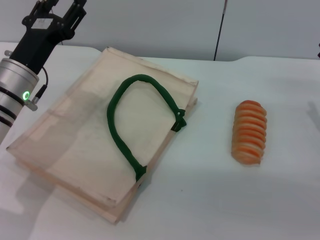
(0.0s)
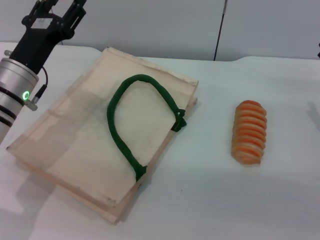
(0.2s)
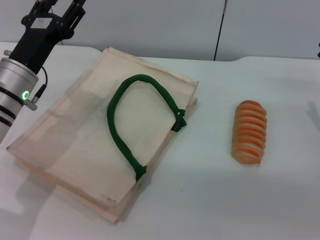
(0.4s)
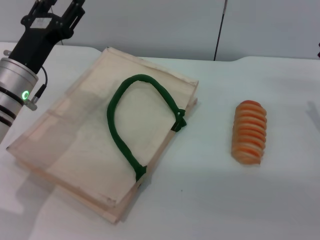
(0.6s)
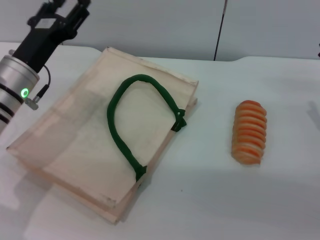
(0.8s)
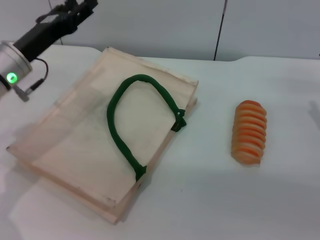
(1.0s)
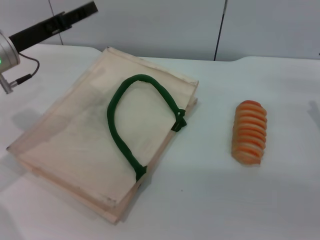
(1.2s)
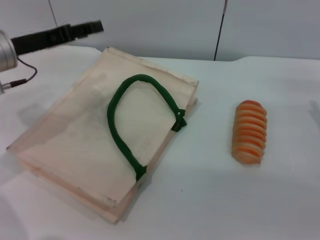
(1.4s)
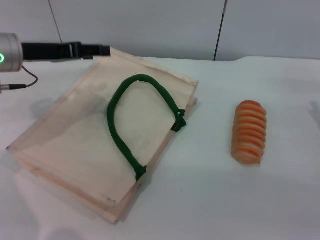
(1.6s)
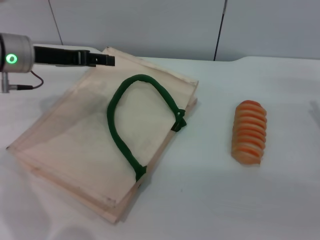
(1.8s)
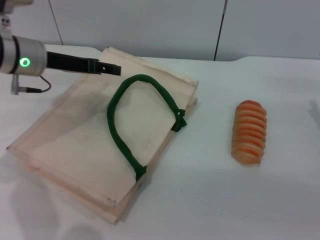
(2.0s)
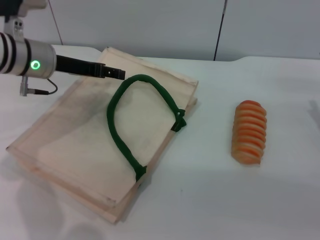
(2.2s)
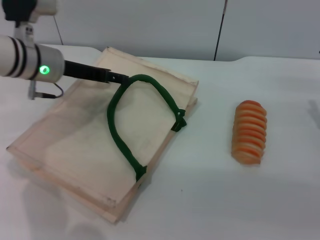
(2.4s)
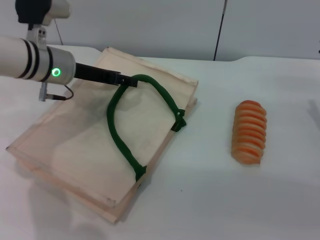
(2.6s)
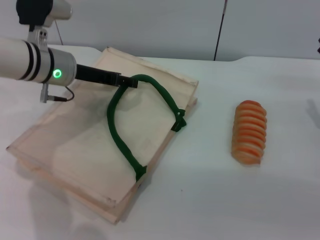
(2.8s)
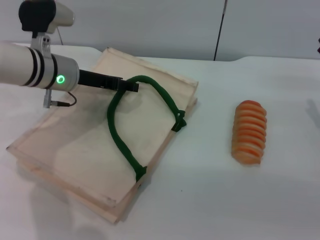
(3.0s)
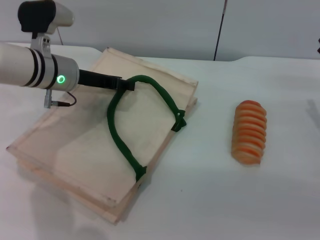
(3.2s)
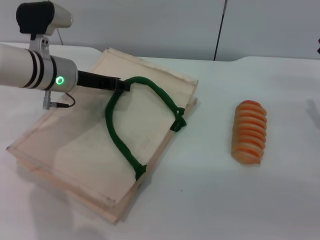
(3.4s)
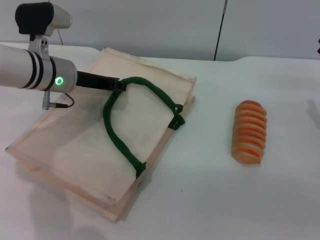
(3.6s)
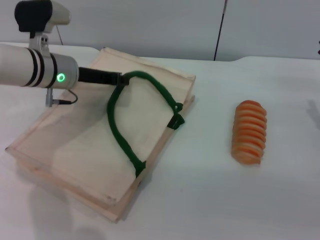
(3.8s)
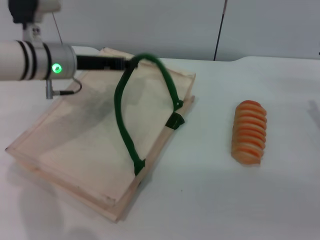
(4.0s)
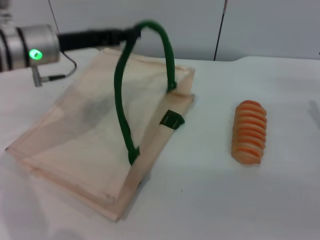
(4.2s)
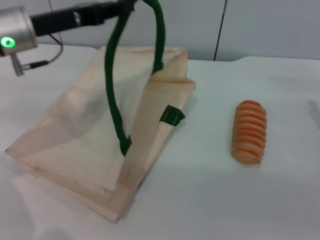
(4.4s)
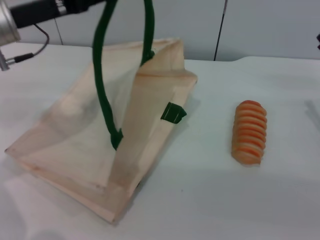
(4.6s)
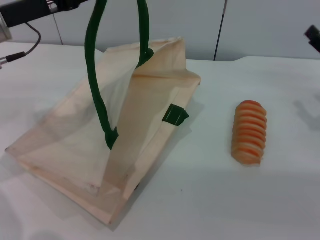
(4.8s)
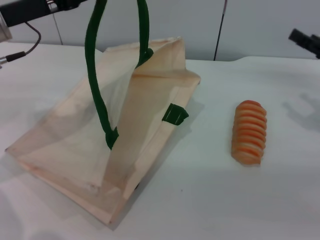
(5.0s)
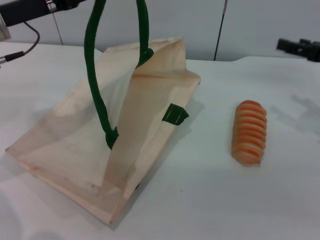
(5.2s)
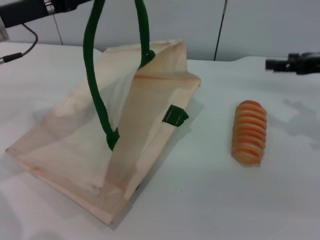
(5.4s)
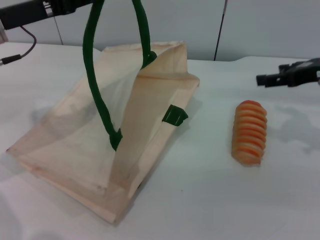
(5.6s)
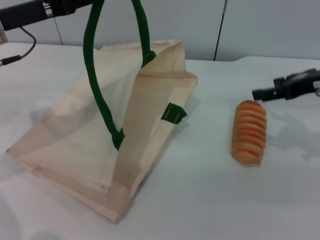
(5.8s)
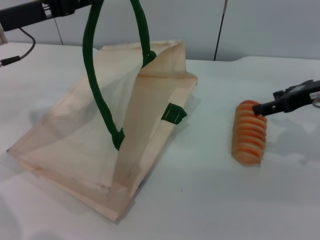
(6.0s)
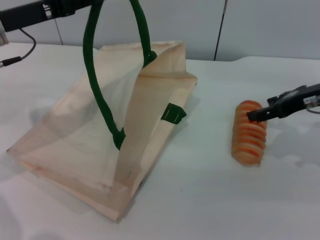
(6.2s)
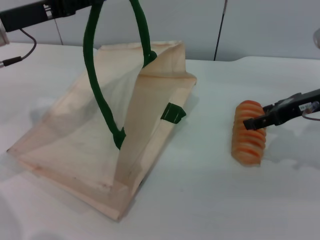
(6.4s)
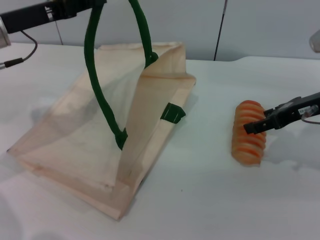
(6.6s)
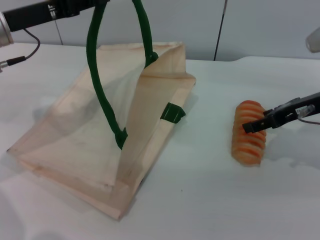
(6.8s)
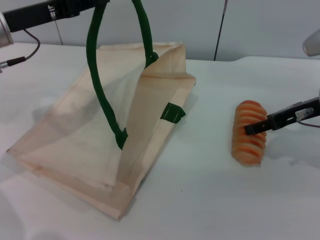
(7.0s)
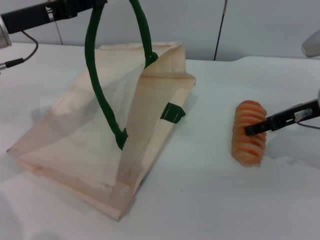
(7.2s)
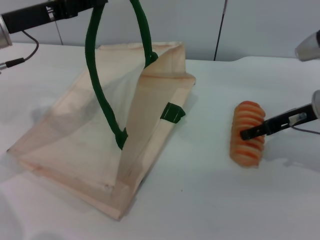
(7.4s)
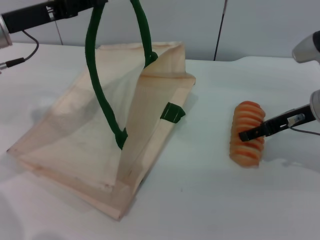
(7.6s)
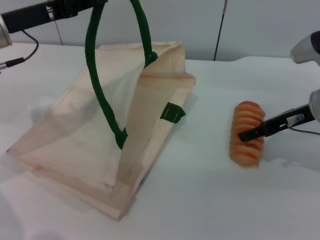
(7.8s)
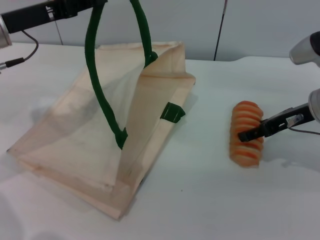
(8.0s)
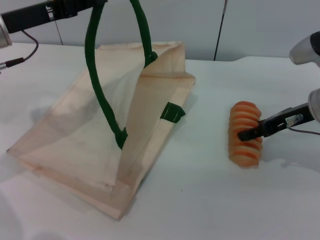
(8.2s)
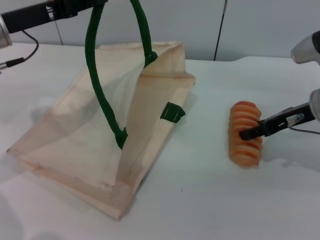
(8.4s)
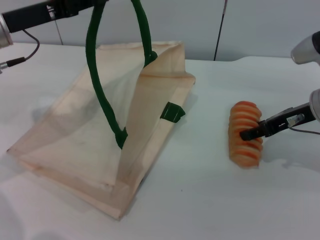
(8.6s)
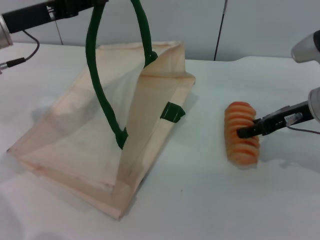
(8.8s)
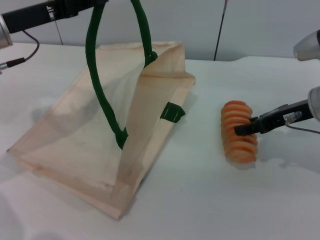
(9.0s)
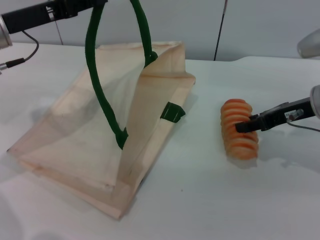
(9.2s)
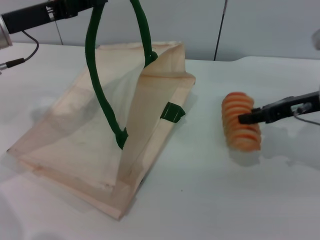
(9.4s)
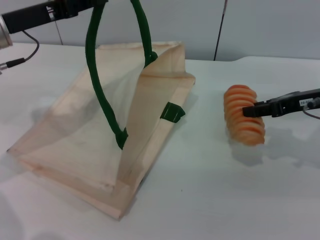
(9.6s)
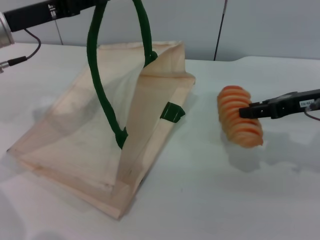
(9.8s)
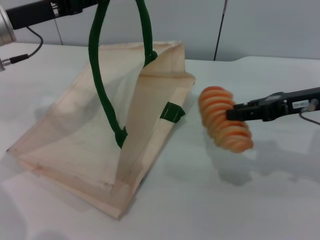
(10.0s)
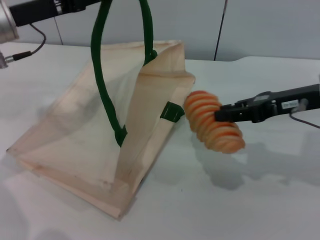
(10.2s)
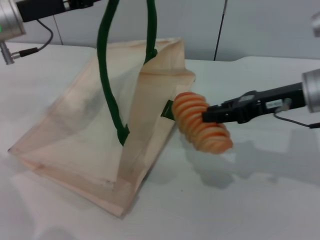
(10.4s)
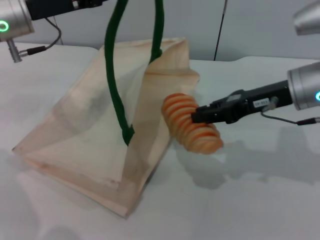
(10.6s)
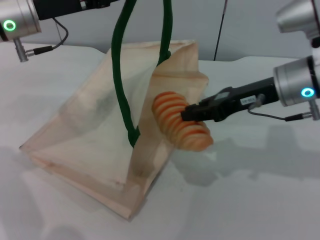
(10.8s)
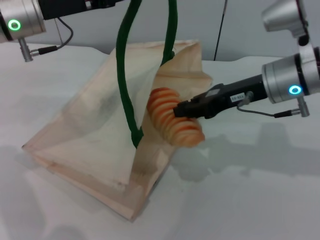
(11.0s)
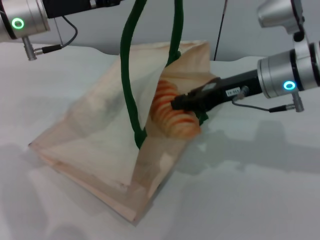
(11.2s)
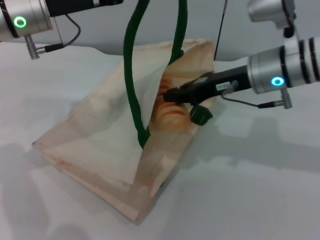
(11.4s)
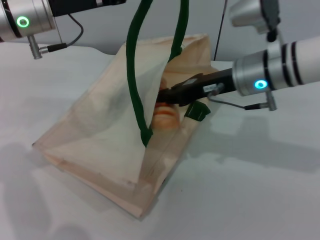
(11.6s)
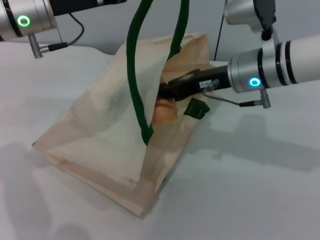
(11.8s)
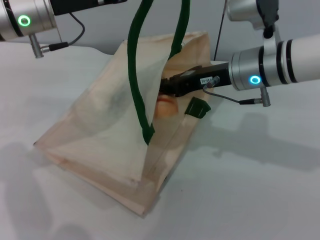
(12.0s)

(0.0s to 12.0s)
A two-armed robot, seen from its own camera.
Task of the whole recording: pick up the bread from the table and place it in the white handbag.
Step, 0.0s - 4.4s: Lift the woven bag with the left gripper to open it.
Step, 4.6s - 9.6s: Pick up the bread with the right gripper.
0.0s - 1.6s: The left gripper travels upward by approximately 5 cm.
1.6s - 3.0s: The left gripper shifts roughly 5 cm to the right.
3.0s - 4.4s: The left gripper goes roughly 5 cm upward, and closes its fingers.
4.4s - 6.0s: The right gripper travels upward and forward by approximately 10 cm.
6.0s - 7.6s: The right gripper moves approximately 5 cm.
7.6s - 9.0s: The grippers stay close to where they were, moving slightly.
9.0s - 10.4s: The right gripper closes up.
10.4s - 12.0s: The right gripper travels to the left by about 10 cm.

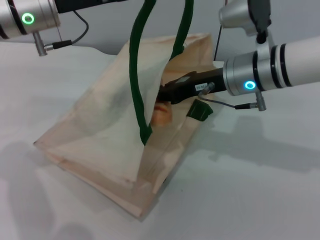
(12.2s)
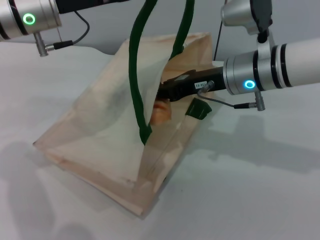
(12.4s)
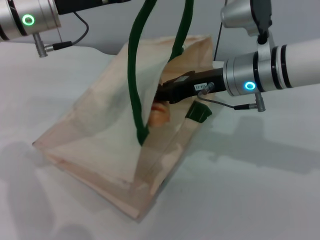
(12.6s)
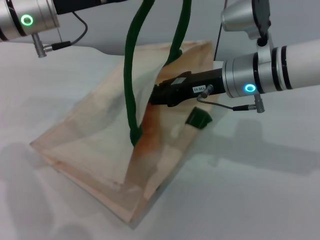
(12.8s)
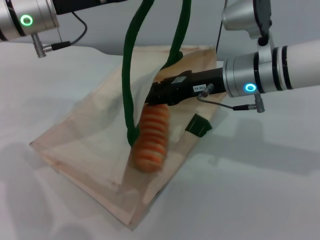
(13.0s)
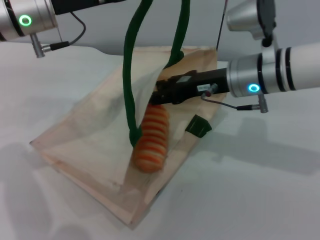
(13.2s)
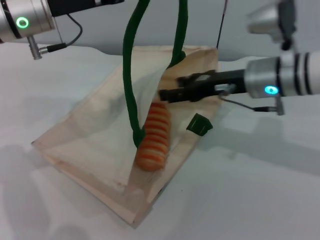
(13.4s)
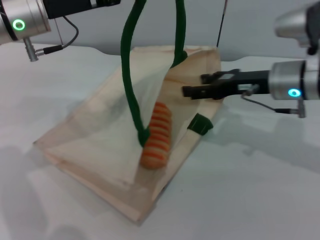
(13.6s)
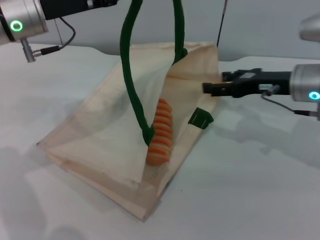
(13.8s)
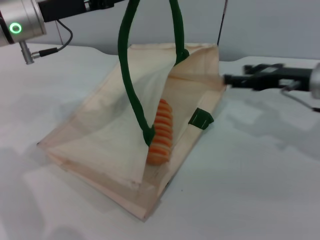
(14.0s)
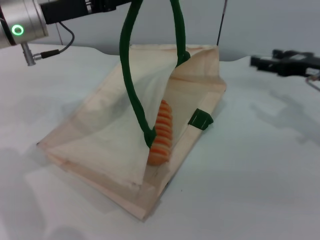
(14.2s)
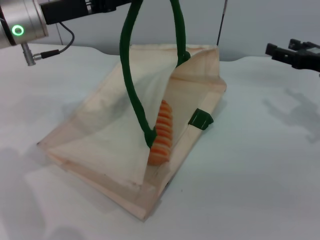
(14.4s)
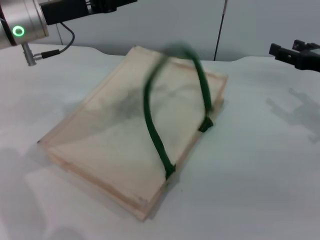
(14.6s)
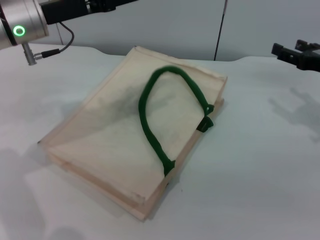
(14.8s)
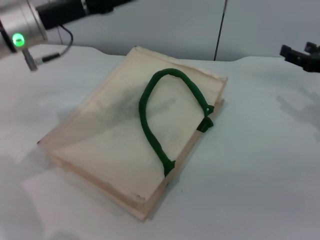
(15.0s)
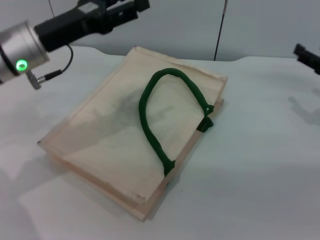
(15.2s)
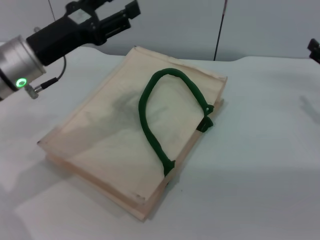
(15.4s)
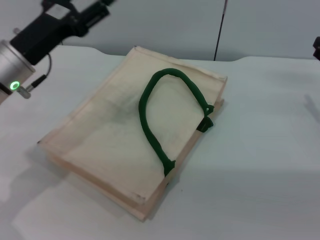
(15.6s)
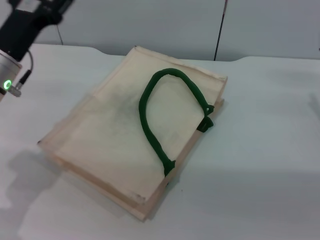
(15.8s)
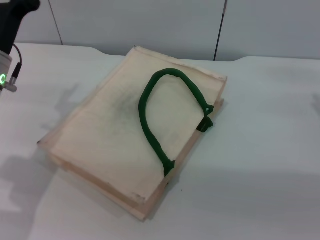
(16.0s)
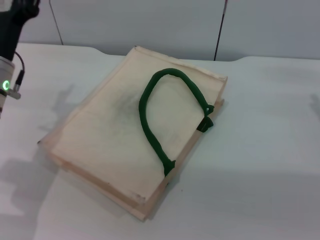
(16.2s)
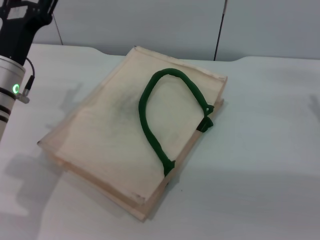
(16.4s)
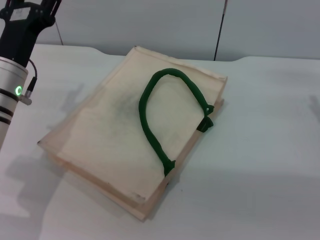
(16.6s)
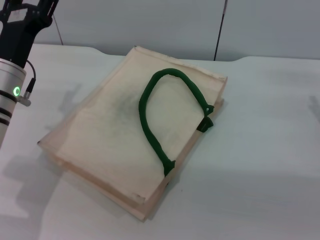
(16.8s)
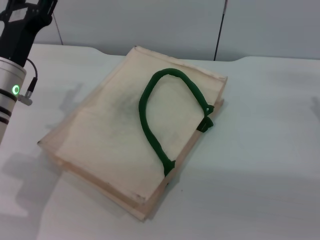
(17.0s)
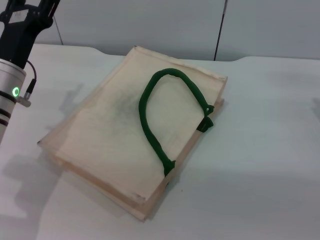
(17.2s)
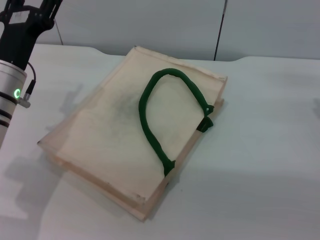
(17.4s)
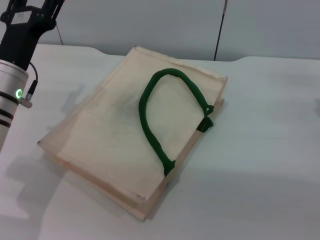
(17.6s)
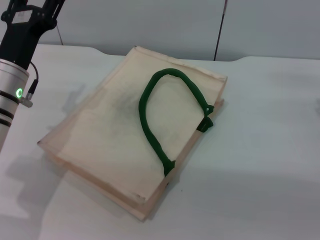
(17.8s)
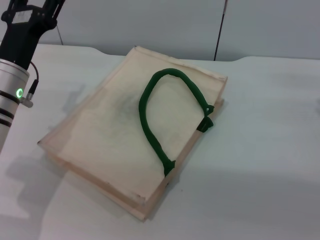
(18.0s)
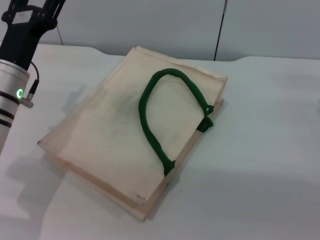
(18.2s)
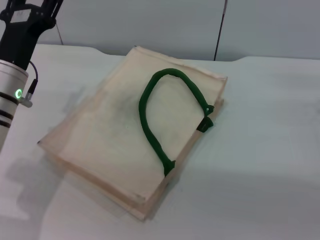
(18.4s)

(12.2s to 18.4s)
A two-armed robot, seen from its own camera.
Task of the whole recording: pick up the bread from the table and place it in the white handbag.
12.2s - 13.8s: The right gripper shifts roughly 10 cm to the right, and opens.
13.8s - 15.4s: The left gripper shifts about 5 cm downward, and opens. Meanwhile the right gripper moves to the right, some 10 cm.
16.8s - 18.4s: The grippers move only a little.

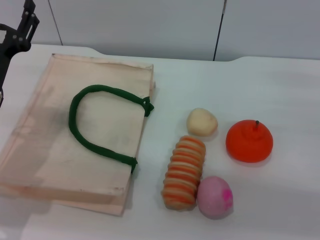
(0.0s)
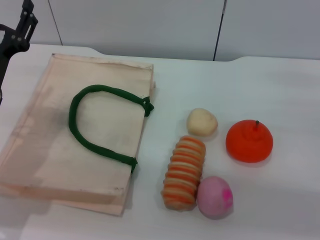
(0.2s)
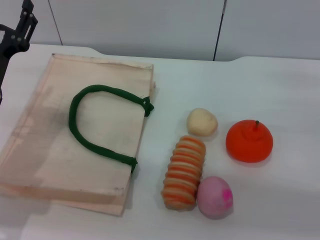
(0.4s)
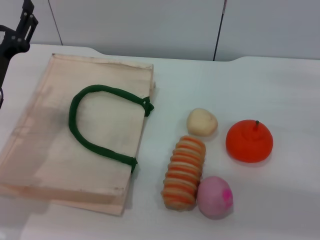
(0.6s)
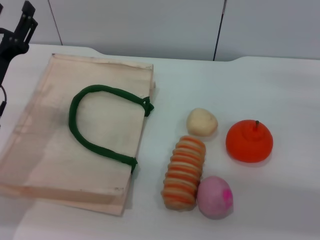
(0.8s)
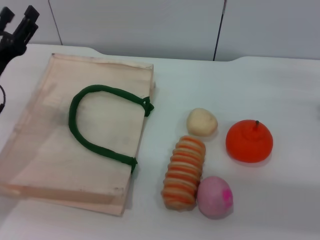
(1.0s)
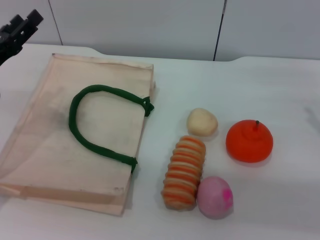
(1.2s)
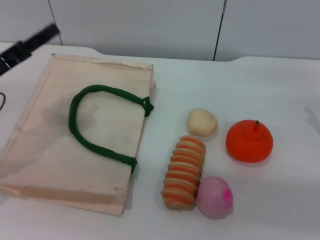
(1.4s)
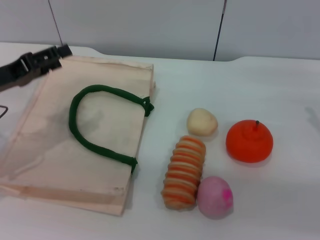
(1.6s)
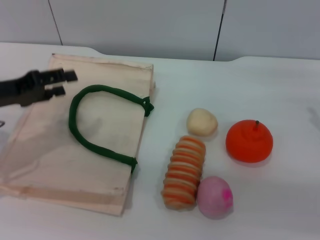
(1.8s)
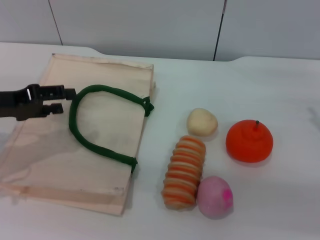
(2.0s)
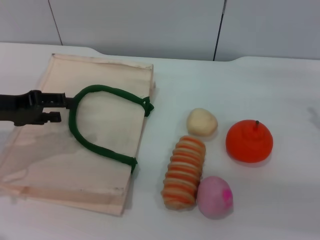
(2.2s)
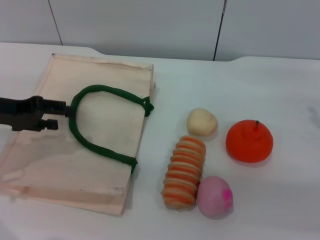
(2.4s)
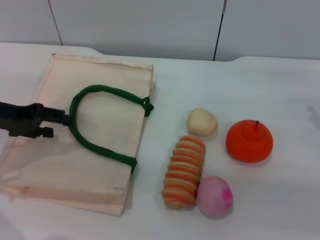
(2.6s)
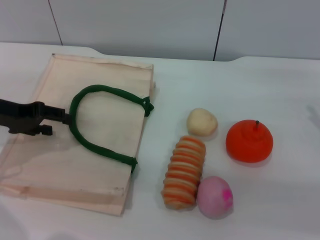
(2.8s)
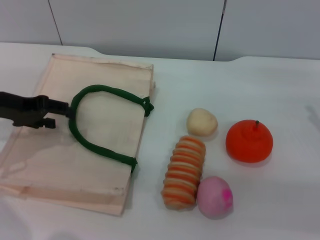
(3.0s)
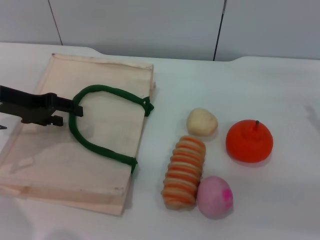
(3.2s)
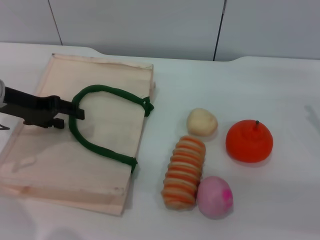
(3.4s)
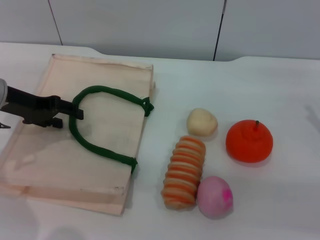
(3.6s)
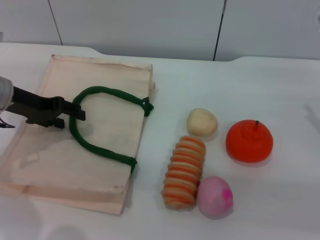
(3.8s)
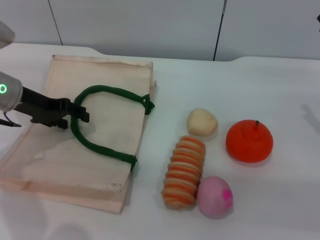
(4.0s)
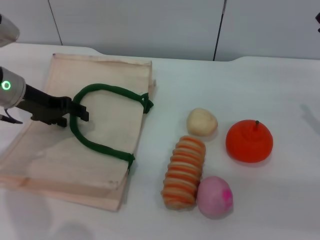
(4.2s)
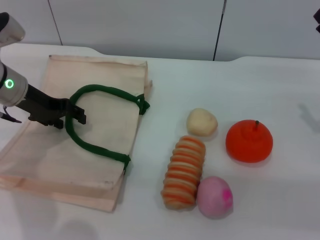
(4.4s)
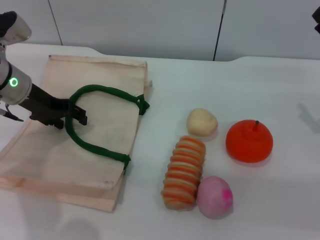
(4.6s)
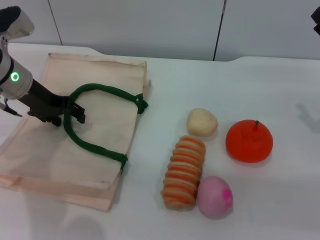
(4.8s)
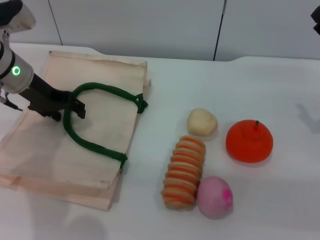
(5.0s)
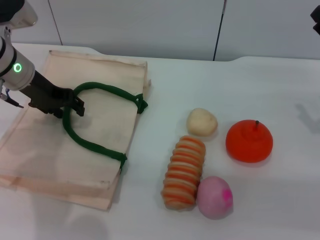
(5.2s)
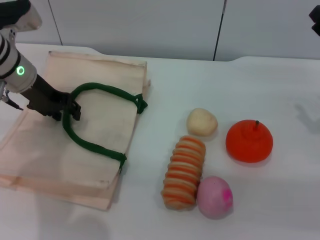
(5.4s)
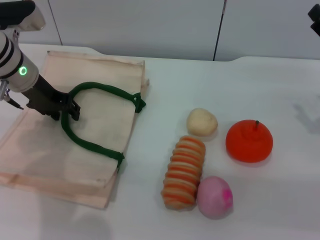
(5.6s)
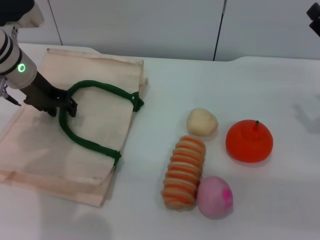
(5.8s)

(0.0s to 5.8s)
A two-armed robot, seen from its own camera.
Task of the whole recording: pick up the egg yolk pastry from the table and place it in the white handbag.
0.0s - 1.4s: The left gripper heads to the left, covering approximately 5 cm.
2.8s - 4.4s: The left gripper travels forward by some 5 cm.
4.4s - 5.8s: There are only small adjustments of the grippers.
